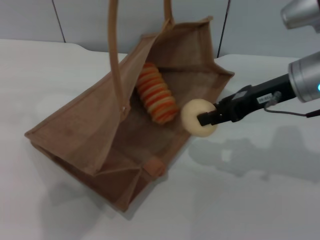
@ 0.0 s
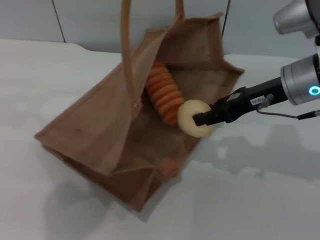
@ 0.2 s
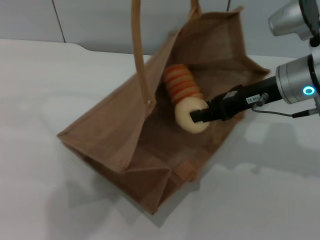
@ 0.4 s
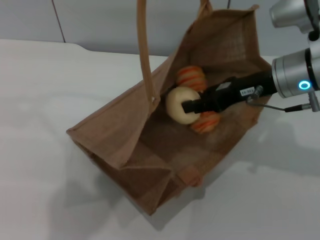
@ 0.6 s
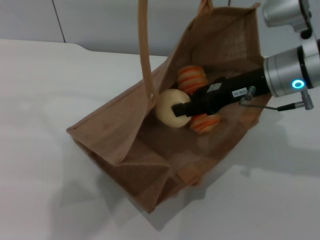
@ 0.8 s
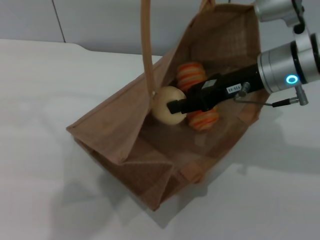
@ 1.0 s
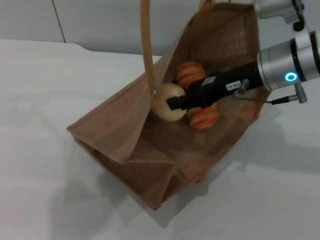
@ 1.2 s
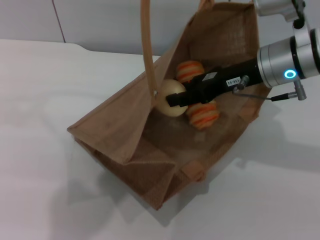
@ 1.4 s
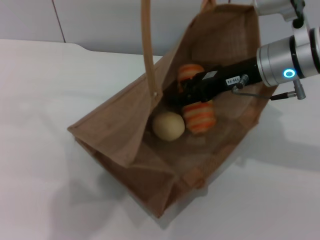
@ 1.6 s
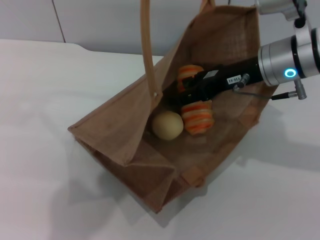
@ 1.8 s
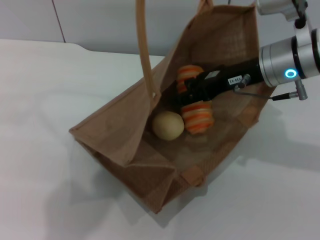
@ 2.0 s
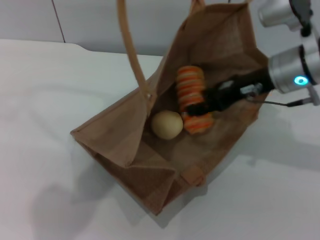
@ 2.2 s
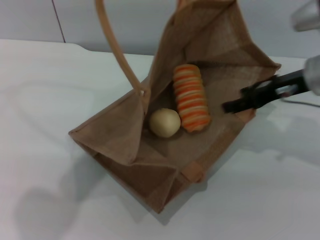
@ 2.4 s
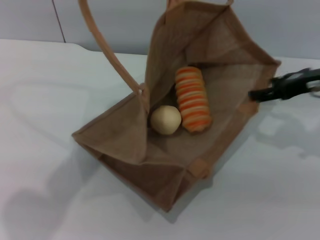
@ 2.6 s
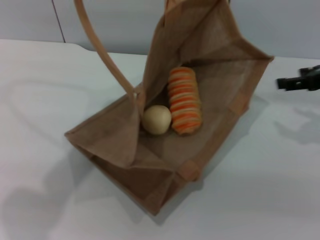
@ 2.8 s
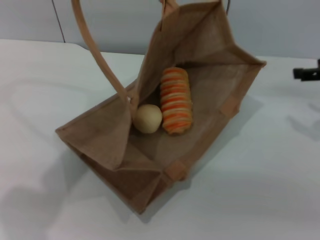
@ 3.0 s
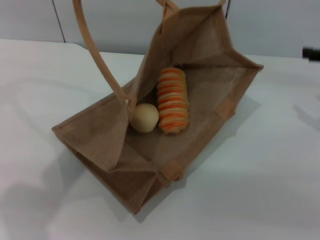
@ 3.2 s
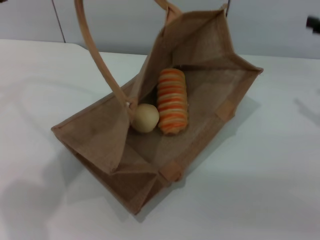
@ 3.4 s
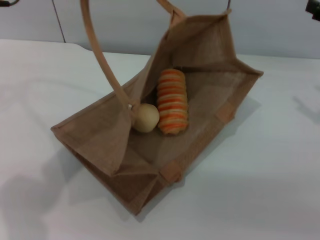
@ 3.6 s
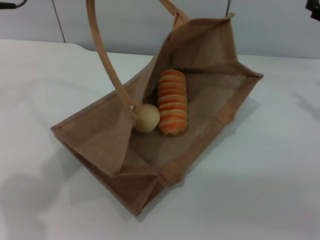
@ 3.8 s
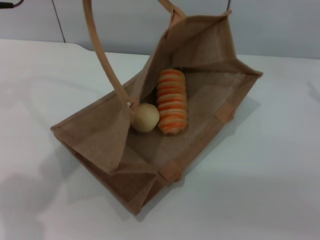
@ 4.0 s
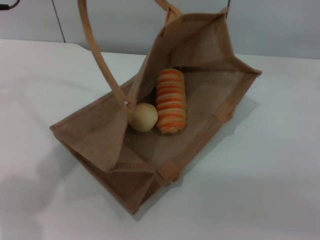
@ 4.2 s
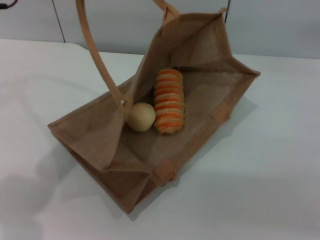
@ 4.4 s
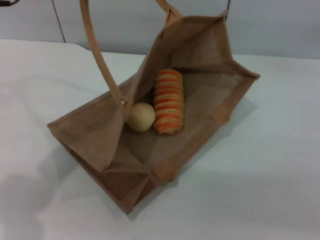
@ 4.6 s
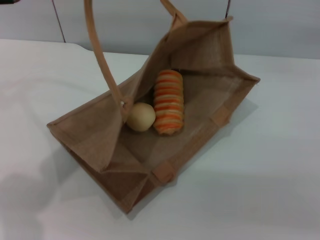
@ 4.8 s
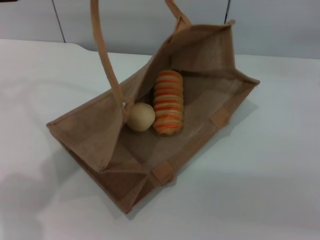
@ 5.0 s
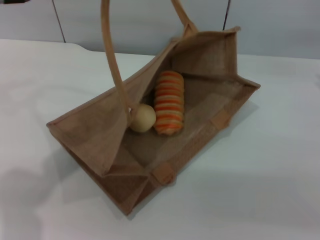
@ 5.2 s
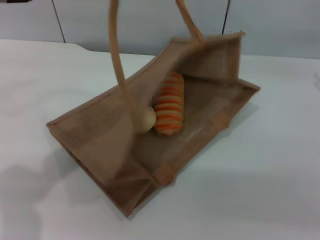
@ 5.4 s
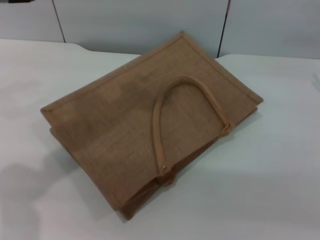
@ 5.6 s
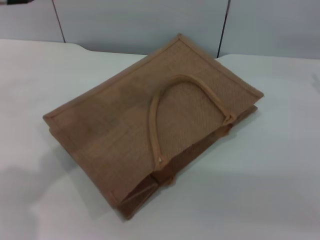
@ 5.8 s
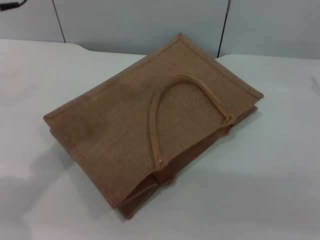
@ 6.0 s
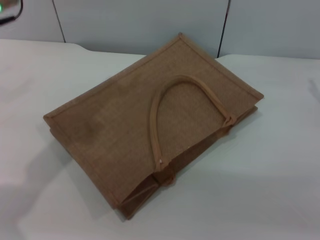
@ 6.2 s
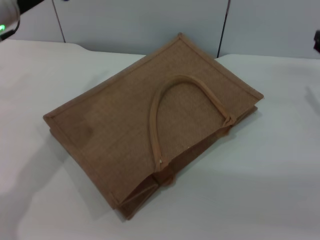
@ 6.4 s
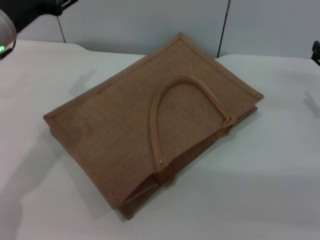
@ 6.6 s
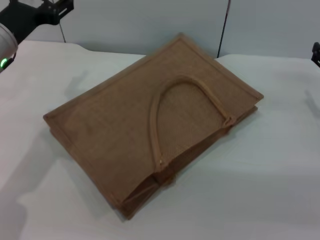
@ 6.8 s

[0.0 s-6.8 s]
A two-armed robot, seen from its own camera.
Task of the whole recording: pick up the bread and egg yolk pastry from the table and place it in the brown handbag.
Step, 0.0 to 2.0 s: Place the egg yolk pastry into the woven bag with the right gripper.
Step, 2.4 to 5.8 s: Lower the woven bag with the left gripper to close it.
1.4 to 2.8 s: The left gripper shifts some 10 cm to the left, while the right gripper shifts about 15 cm to the right, and opens its fingers.
4.0 to 5.4 s: The left gripper opens its fingers.
5.4 to 6.8 s: The right gripper shifts about 10 cm downward; the left gripper moves downward, roughly 15 cm.

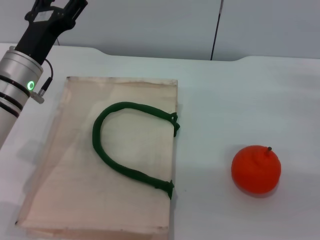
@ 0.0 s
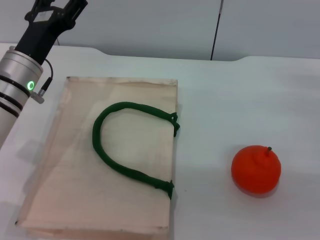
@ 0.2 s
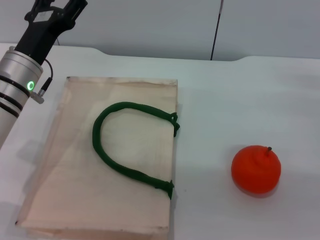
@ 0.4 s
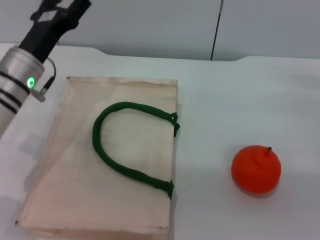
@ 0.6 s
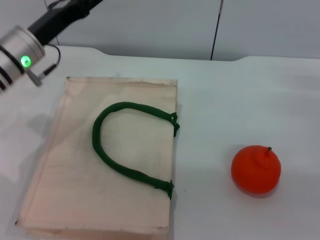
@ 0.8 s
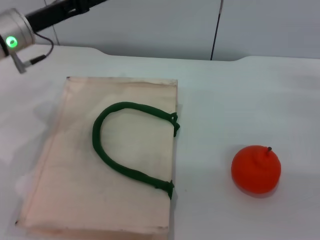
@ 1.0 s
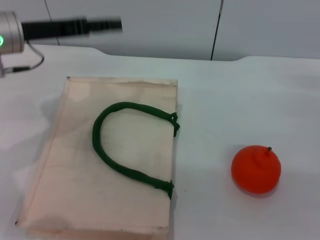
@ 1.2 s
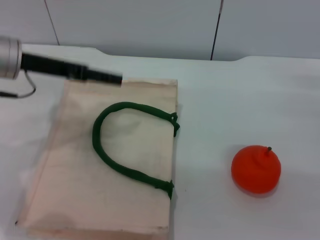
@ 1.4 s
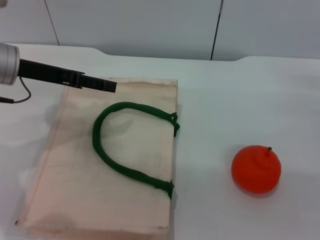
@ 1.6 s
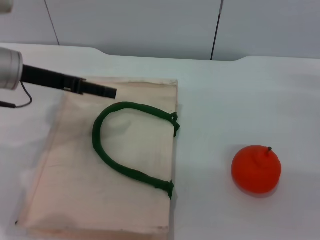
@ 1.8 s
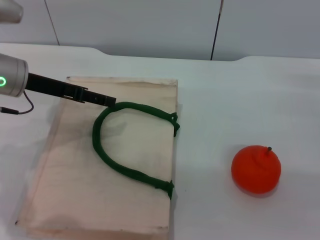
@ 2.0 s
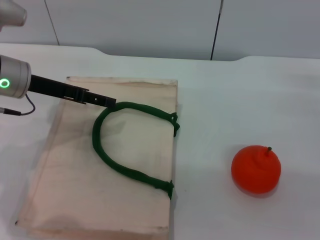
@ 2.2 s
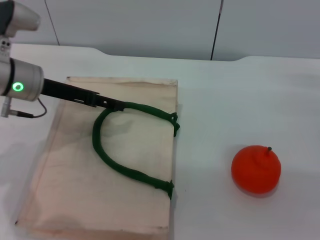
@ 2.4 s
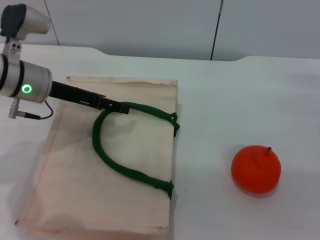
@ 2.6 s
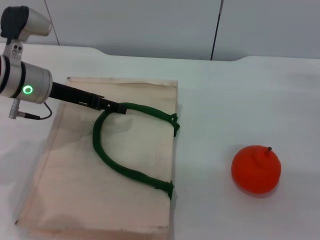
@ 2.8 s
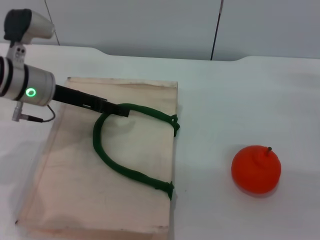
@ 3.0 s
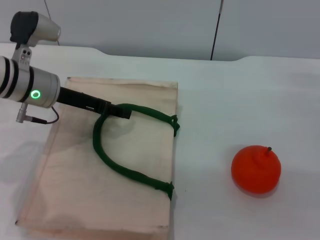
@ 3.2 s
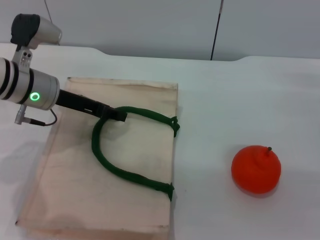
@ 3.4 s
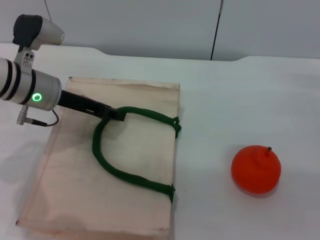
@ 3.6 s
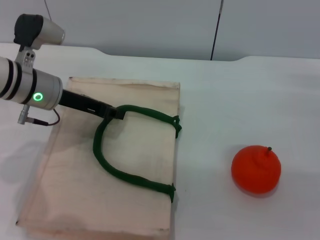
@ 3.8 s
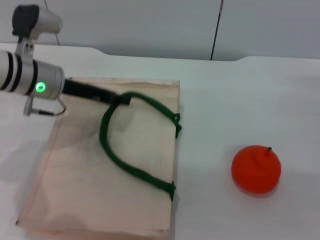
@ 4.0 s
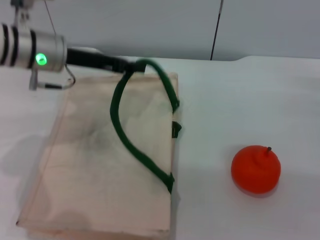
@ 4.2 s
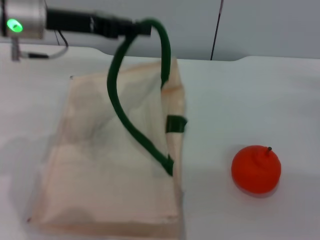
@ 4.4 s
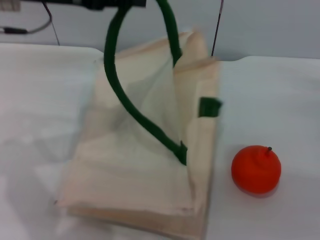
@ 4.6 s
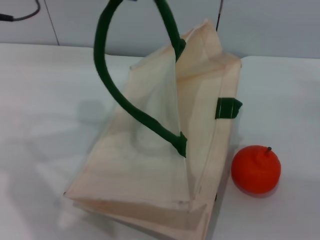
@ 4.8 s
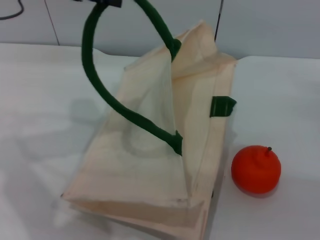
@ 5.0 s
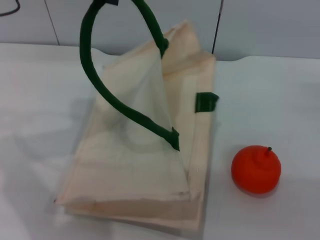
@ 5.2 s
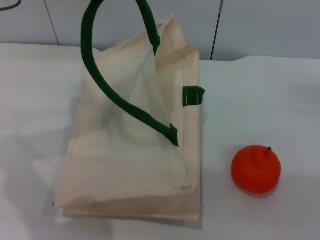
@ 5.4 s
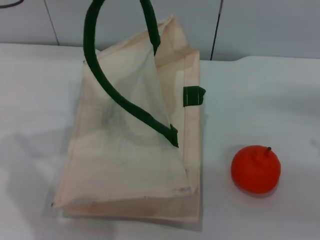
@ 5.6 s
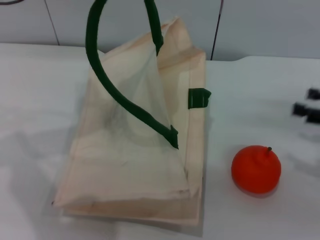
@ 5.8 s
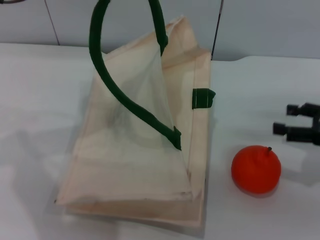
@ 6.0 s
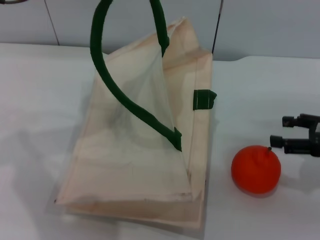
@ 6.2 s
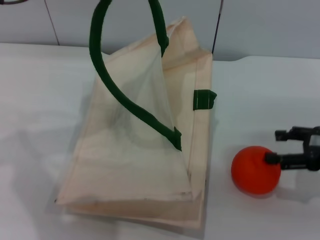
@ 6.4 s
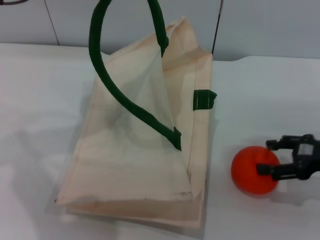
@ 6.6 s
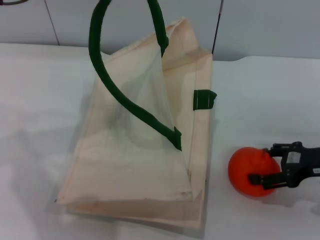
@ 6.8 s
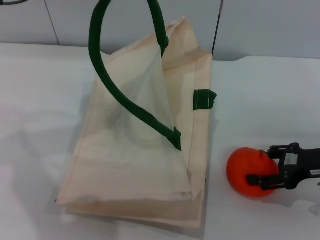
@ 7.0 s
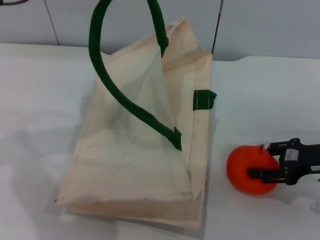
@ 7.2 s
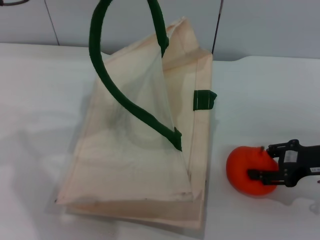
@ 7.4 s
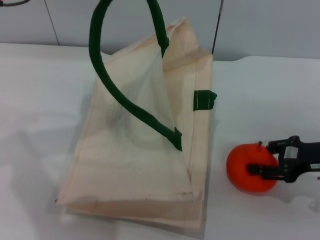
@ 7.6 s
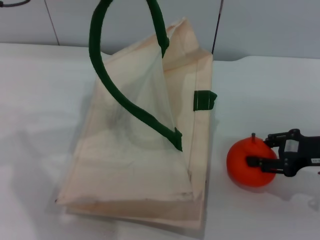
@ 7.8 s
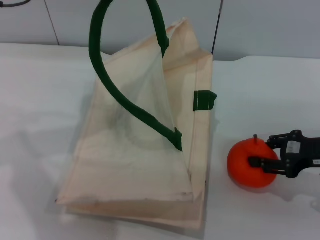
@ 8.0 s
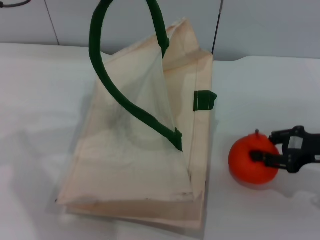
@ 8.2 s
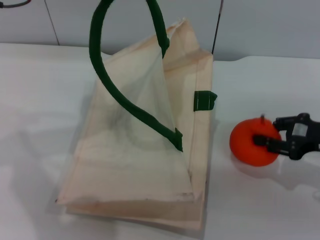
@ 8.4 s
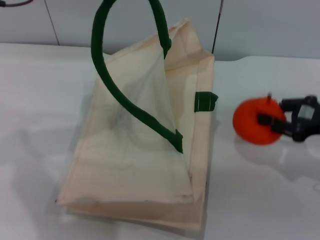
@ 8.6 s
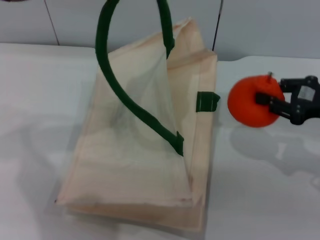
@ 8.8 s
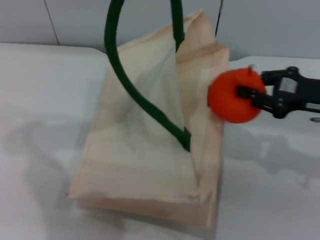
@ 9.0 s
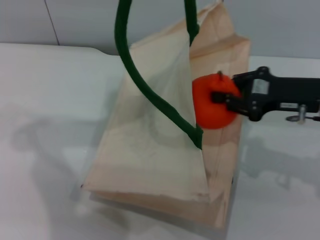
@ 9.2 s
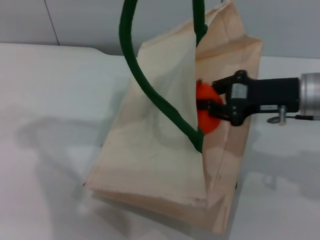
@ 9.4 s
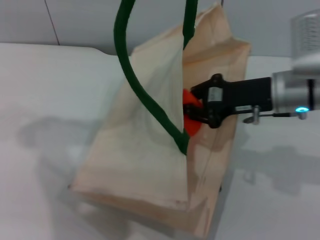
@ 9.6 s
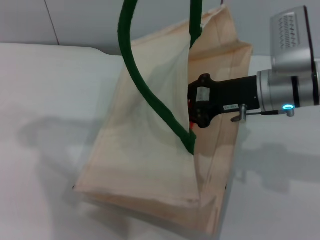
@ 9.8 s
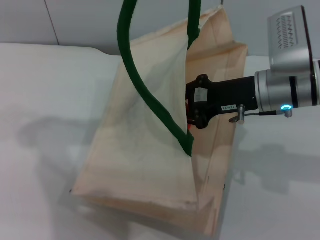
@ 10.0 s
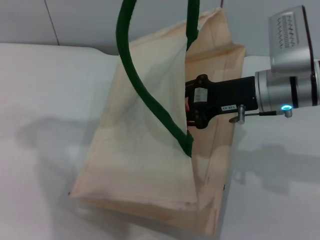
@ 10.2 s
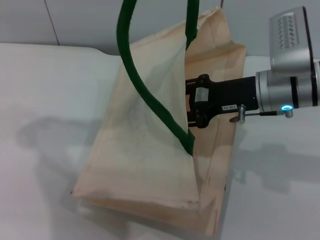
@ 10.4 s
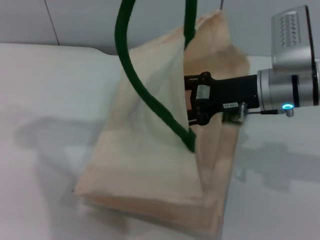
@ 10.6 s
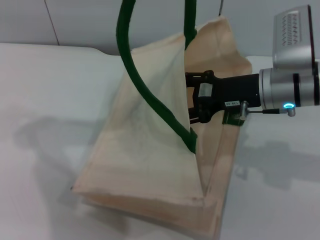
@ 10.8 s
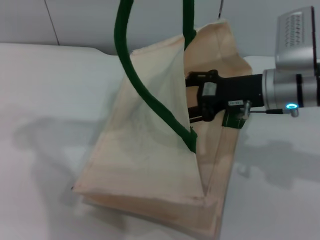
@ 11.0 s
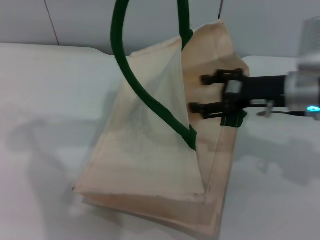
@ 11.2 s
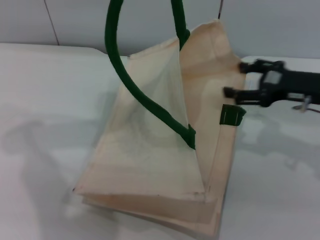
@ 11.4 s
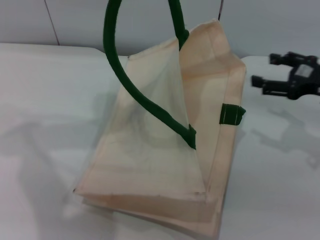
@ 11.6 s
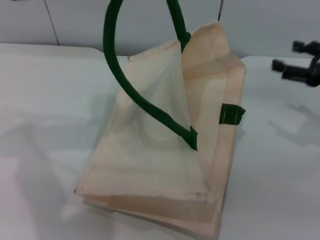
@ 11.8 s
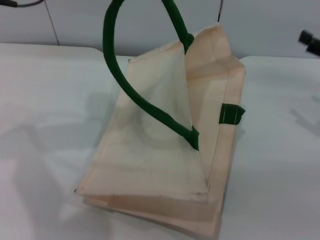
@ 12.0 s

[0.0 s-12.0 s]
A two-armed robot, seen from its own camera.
Task of the whole recording: pick up the orange from the table and place it in the white handbag.
Step, 0.0 to 5.6 s: Lift the woven bag with the left gripper to open it.
Step, 6.0 to 8.2 s: Pick up the orange with the right gripper.
Step, 8.4 to 11.0 s: Place the orange into the woven bag with the right gripper.
0.0 to 1.6 s: The left gripper goes about 5 cm upward.
1.6 to 3.0 s: The left gripper moves roughly 5 cm.
3.0 to 4.4 s: The left gripper travels upward by about 10 cm, and closes up.
4.4 to 6.0 s: The left gripper moves upward, some 10 cm.
6.0 to 7.6 s: The right gripper ends up approximately 5 cm from where it was.
7.6 to 9.0 s: The right gripper is displaced upward by roughly 5 cm, and closes.
9.0 to 10.4 s: The right gripper shifts about 10 cm to the left.
10.4 to 12.0 s: The left gripper shifts by some 5 cm; the right gripper moves to the right, some 20 cm, and opens up.

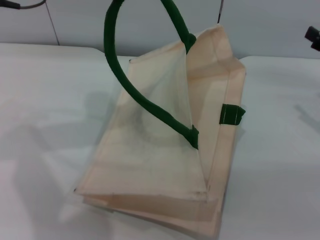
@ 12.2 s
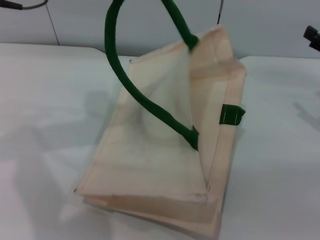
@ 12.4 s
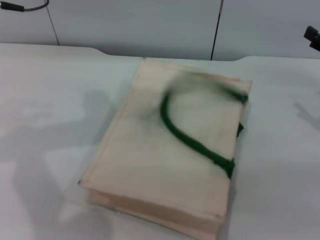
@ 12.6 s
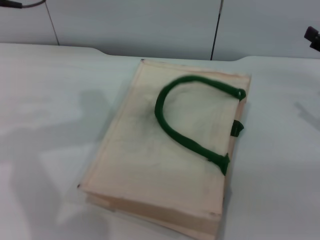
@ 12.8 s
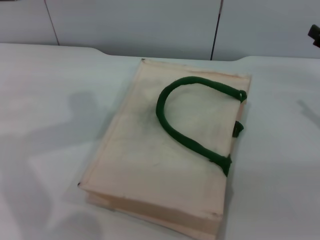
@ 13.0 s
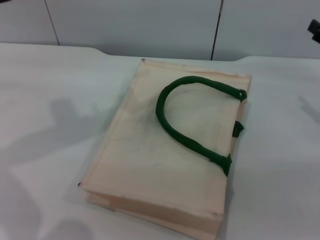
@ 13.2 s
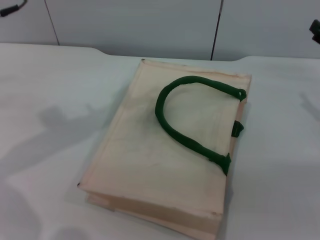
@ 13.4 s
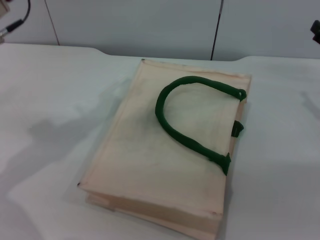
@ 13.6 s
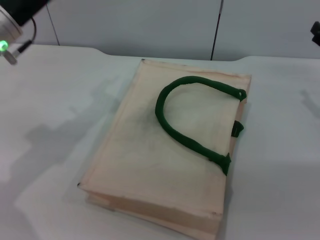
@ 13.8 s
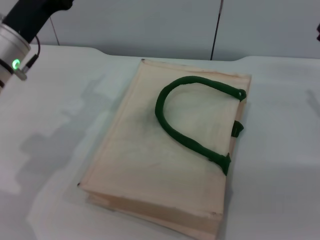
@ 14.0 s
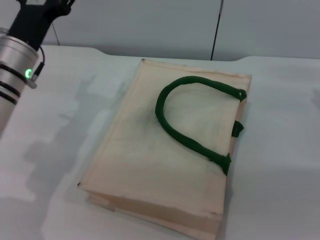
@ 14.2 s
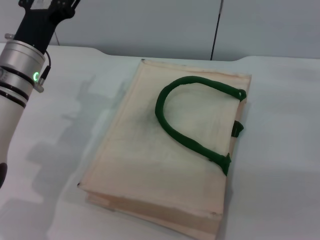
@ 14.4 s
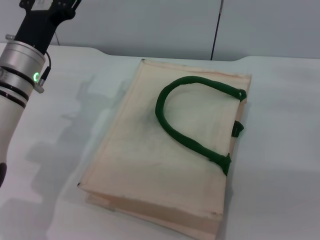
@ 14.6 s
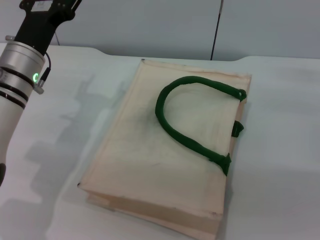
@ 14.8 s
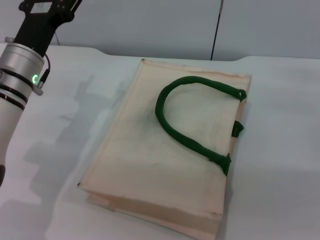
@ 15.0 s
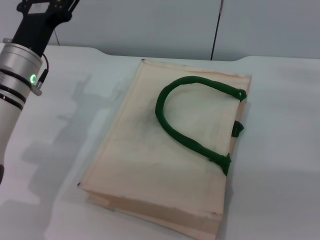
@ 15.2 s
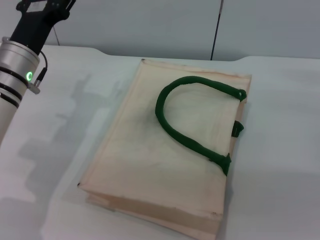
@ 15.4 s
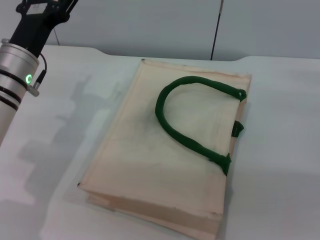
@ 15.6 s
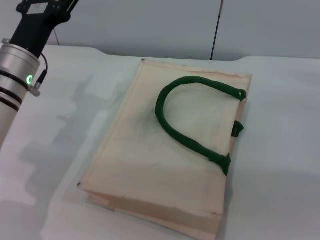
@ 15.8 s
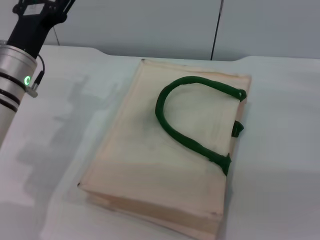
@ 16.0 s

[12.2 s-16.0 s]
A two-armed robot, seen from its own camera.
Task of the whole recording: pick up the orange from the table and place it in the white handbag.
12.2 to 13.4 s: The left gripper travels downward by approximately 5 cm, and opens.
13.4 to 14.8 s: The left gripper travels downward by some 15 cm.
14.8 to 16.0 s: The grippers move only a little.
